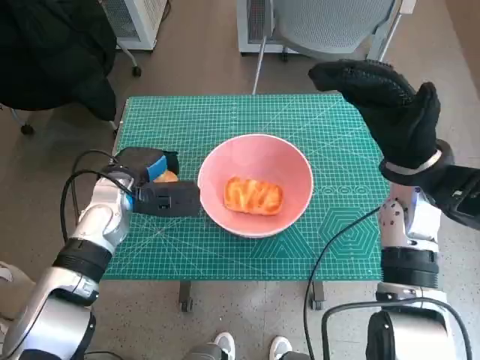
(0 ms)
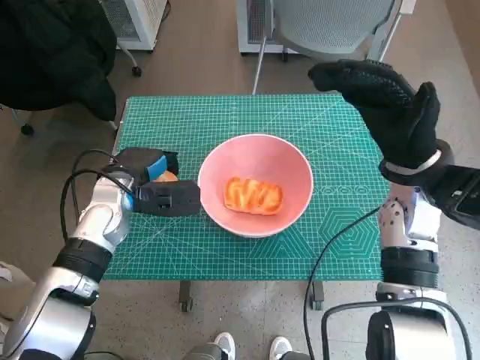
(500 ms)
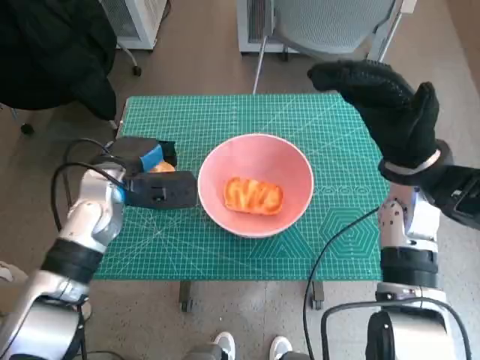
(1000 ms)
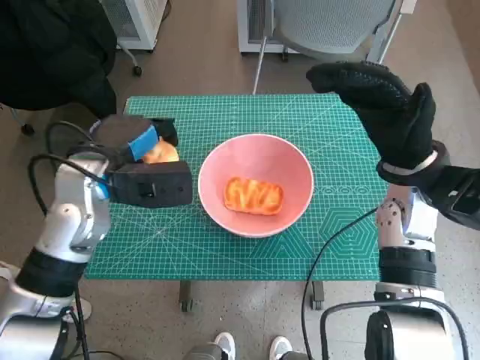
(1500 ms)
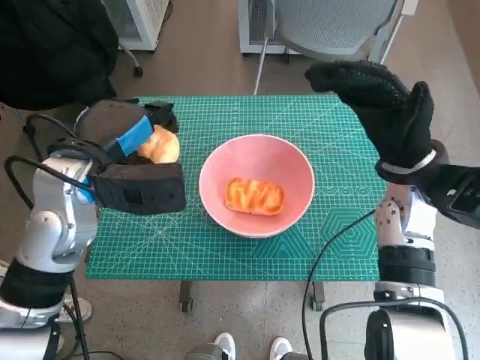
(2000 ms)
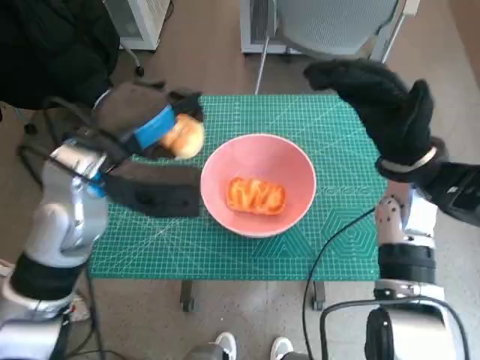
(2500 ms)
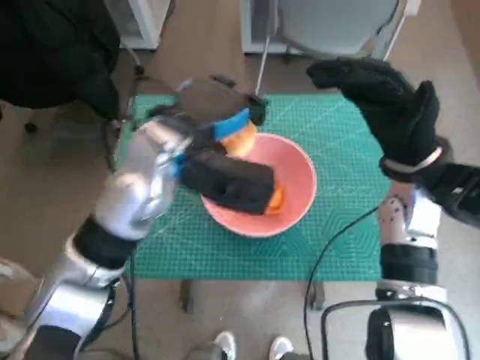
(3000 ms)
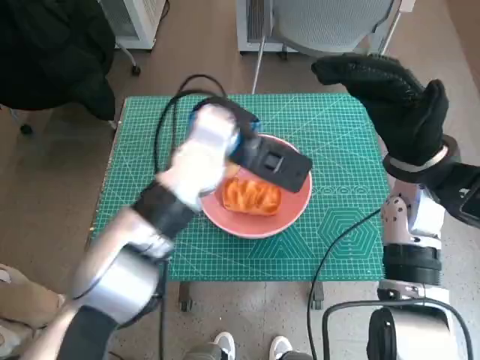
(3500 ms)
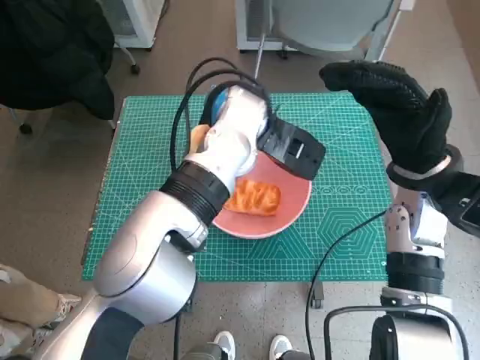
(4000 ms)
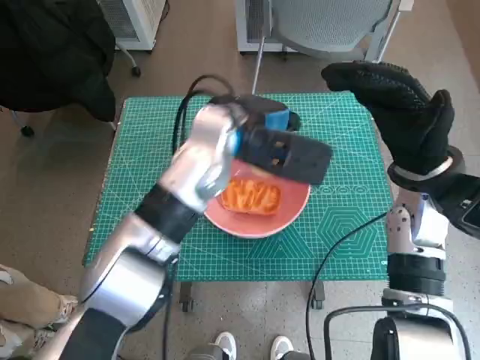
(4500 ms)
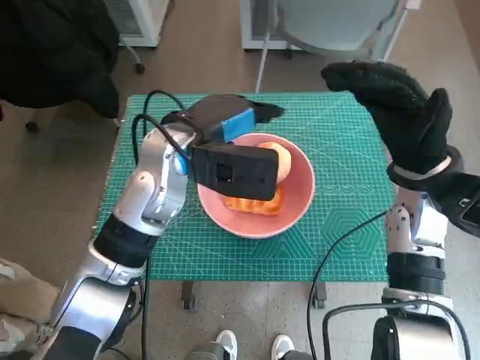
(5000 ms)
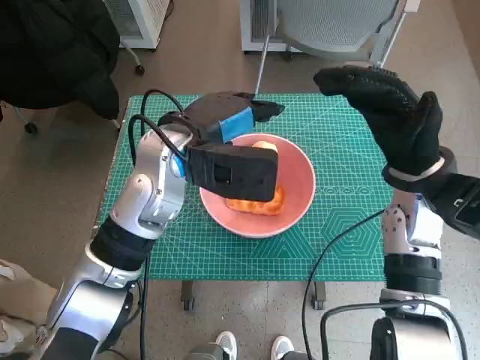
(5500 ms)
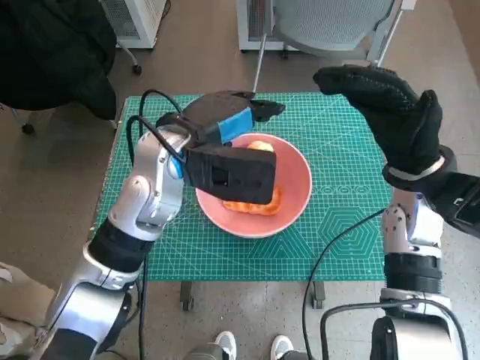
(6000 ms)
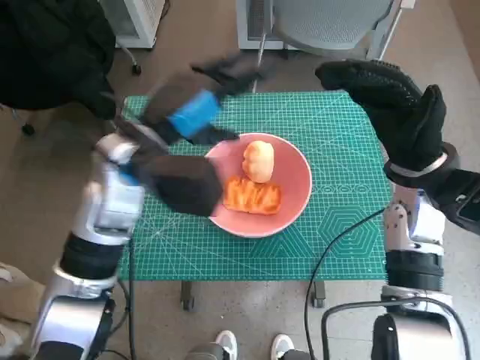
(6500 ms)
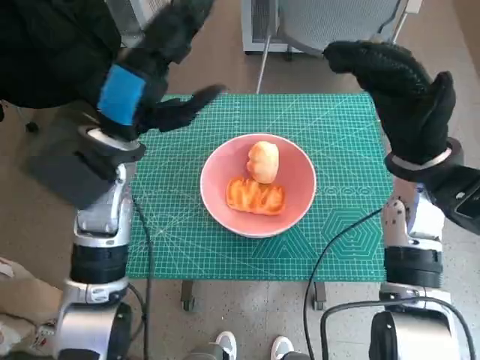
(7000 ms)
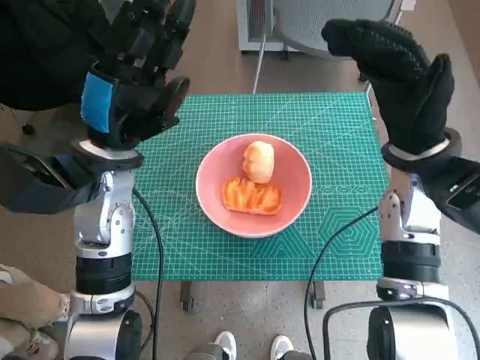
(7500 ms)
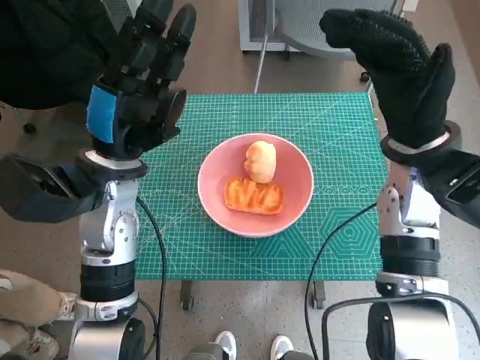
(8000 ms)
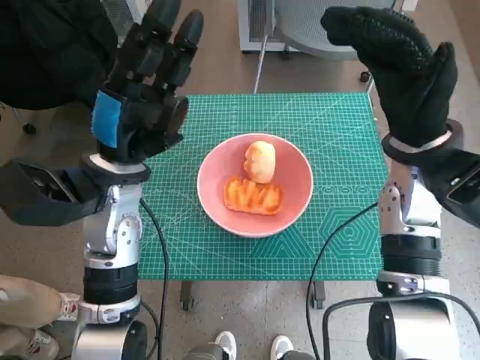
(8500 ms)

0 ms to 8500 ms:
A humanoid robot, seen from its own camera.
Step, 500 ms to 4500 ms: Place the round bread in pink bowl with left hand.
0 ms to 2000 ms: The left hand is displaced upward by approximately 10 cm.
2000 ms to 4000 ms: The left hand travels to the right and forward by roughly 20 cm.
4000 ms to 6500 ms: The left hand goes roughly 15 cm to the left and backward.

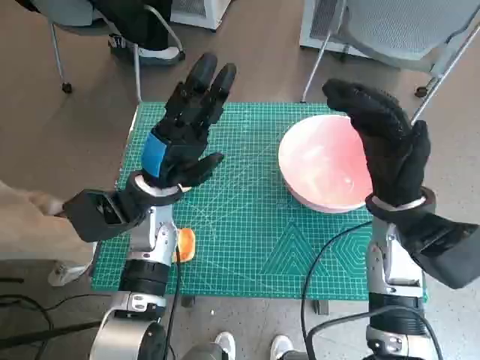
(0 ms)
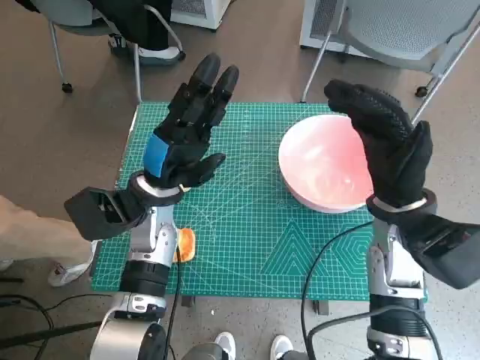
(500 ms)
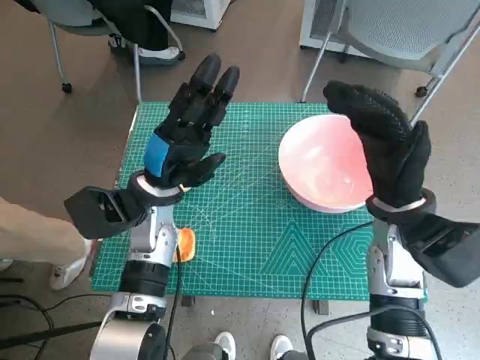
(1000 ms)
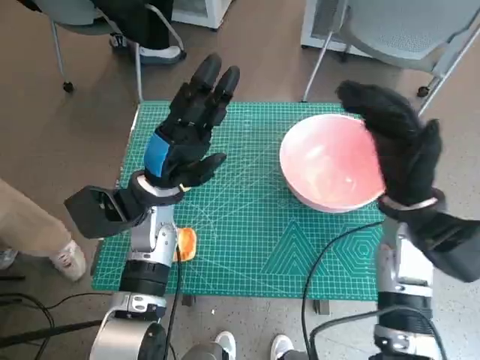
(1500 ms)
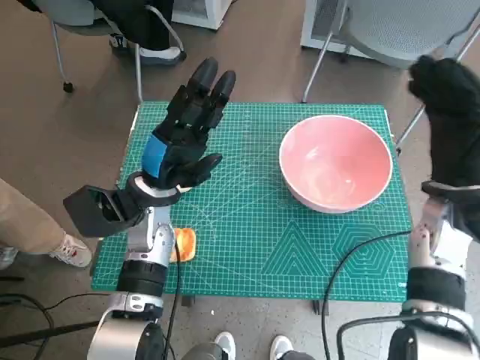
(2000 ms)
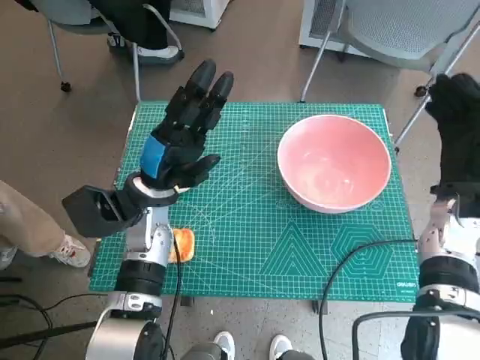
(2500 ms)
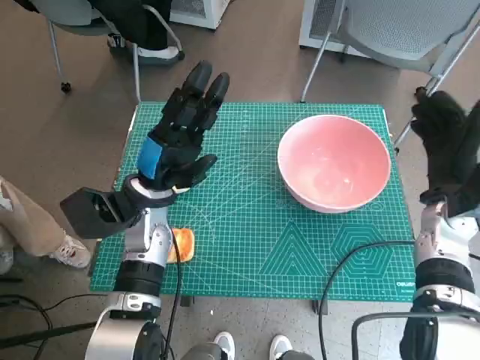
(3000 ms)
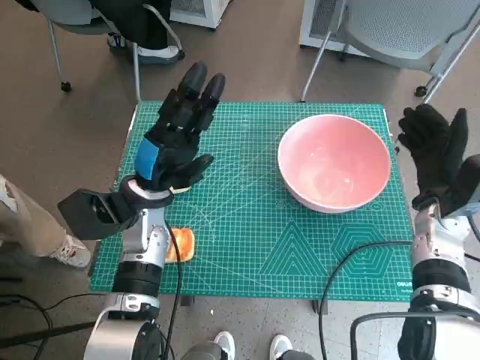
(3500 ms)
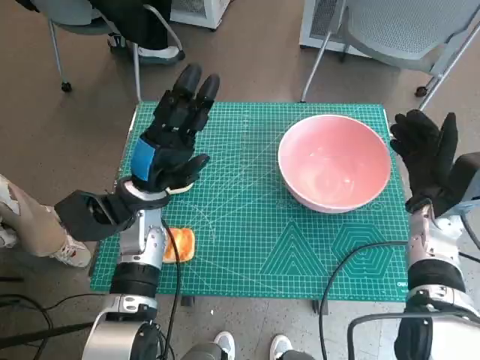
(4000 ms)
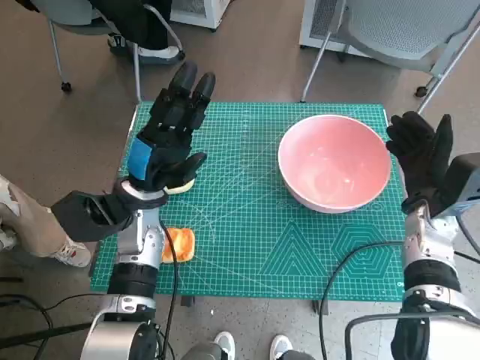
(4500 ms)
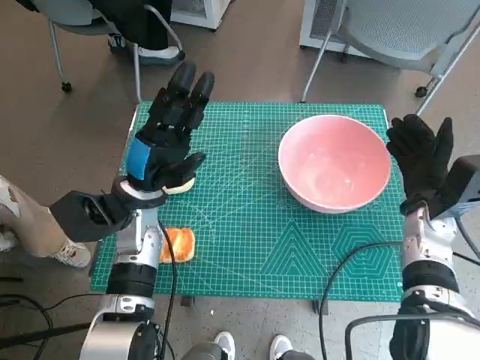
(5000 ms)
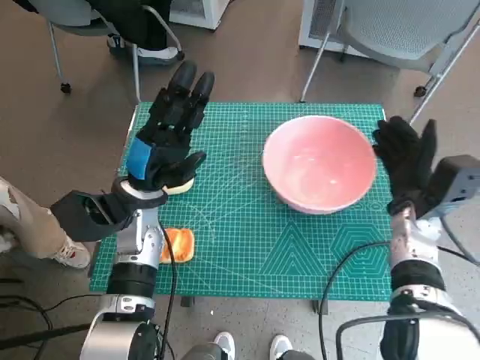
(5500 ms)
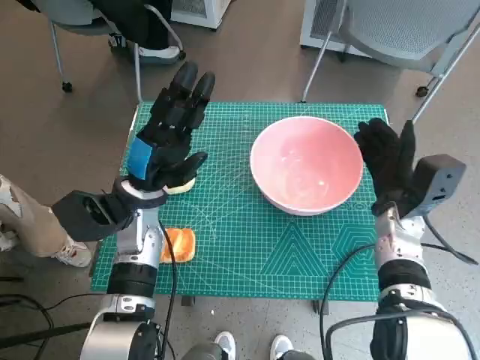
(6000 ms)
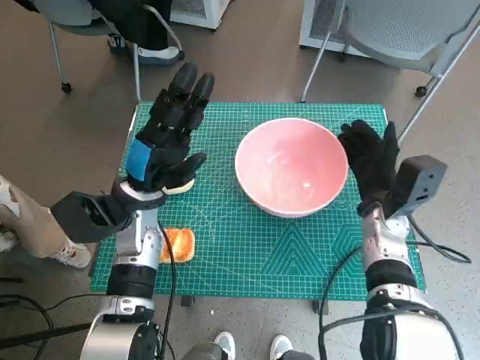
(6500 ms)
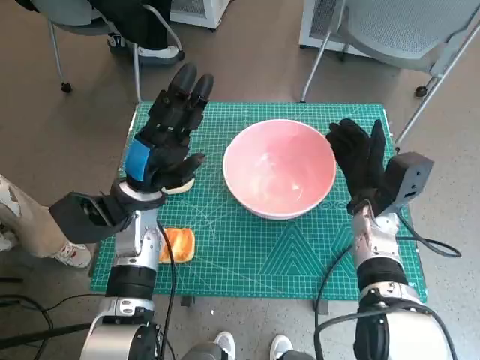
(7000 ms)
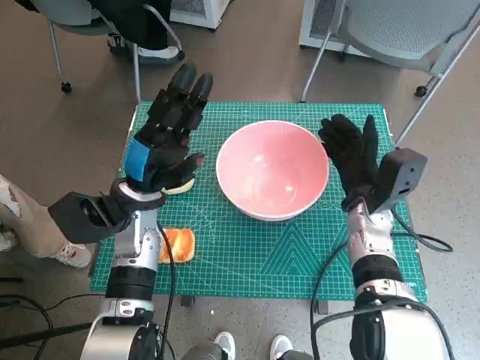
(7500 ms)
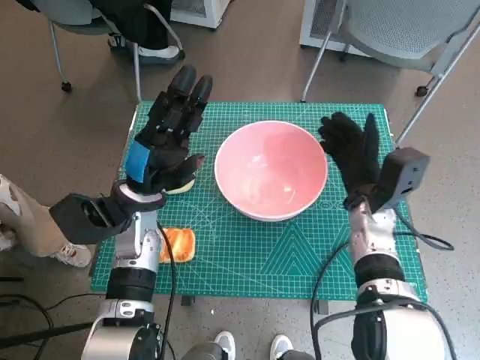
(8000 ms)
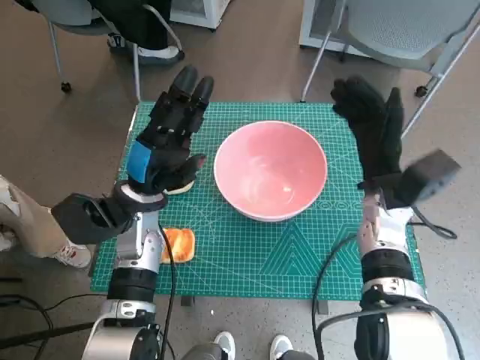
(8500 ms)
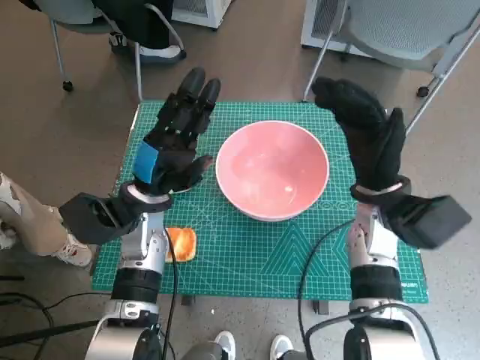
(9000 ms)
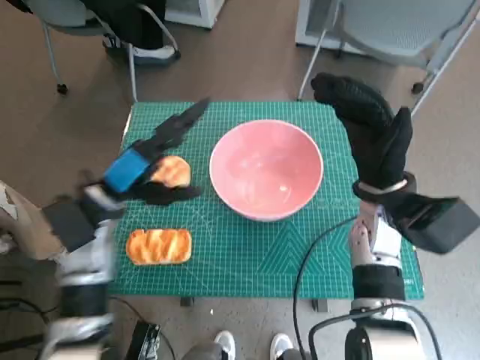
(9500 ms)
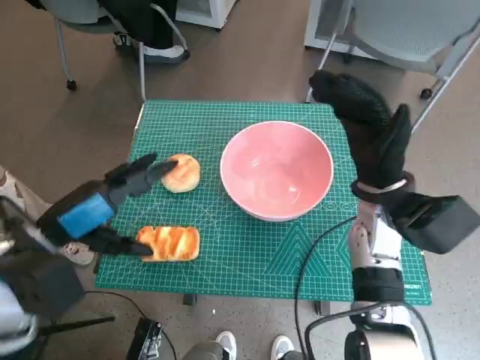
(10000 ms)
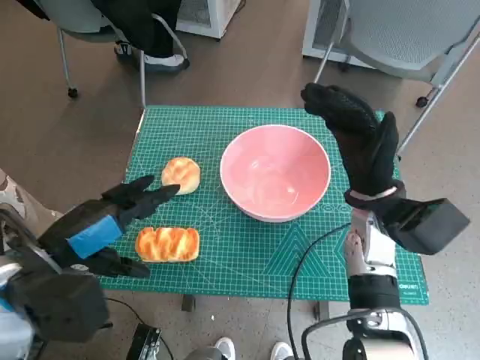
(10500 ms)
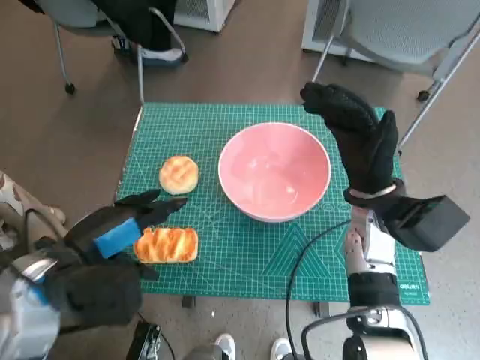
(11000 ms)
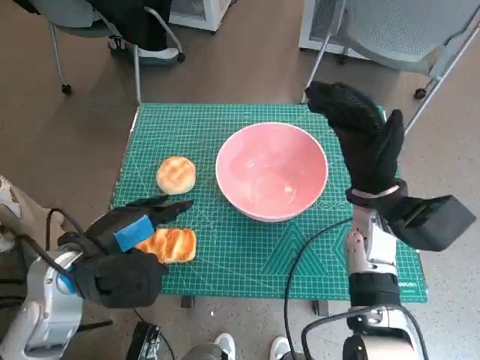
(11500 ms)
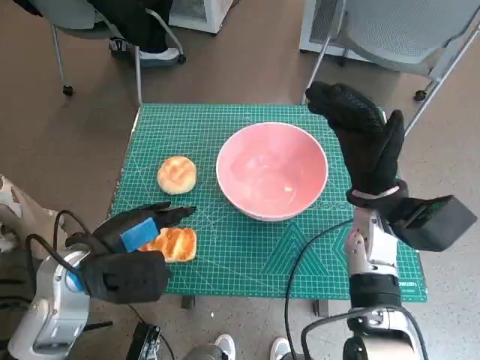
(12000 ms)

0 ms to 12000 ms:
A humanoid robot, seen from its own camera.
Step, 0 ms to 8000 ms: Move the pink bowl to the center of table with right hand.
2000 ms to 4000 ms: The right hand shifts approximately 5 cm downward.
8000 ms to 10000 ms: The right hand heads upward, covering some 5 cm. Meanwhile the left hand shifts roughly 15 cm backward, to the left and upward.
10000 ms to 12000 ms: The left hand changes place by about 5 cm.

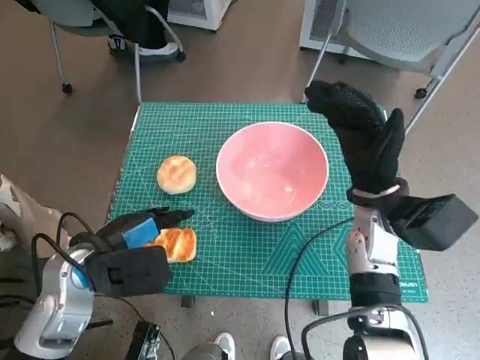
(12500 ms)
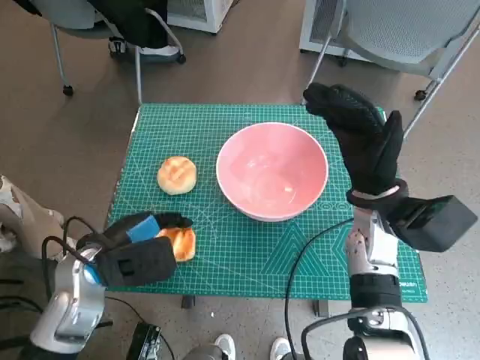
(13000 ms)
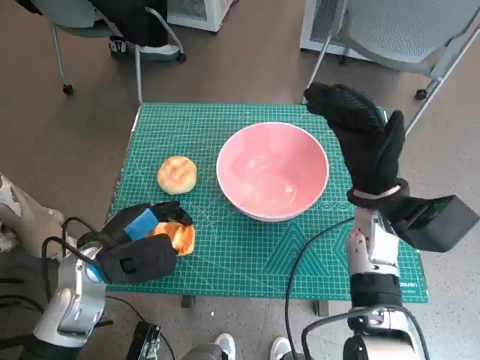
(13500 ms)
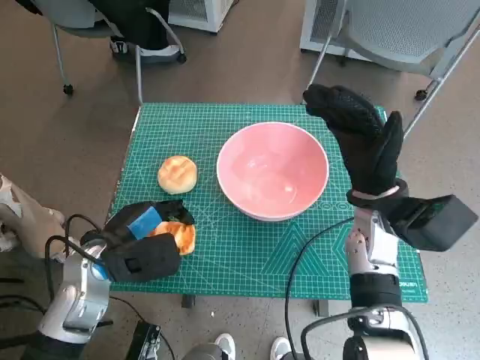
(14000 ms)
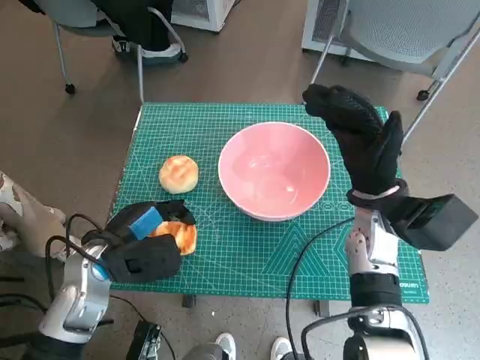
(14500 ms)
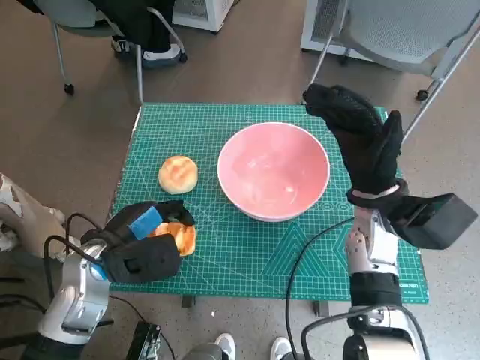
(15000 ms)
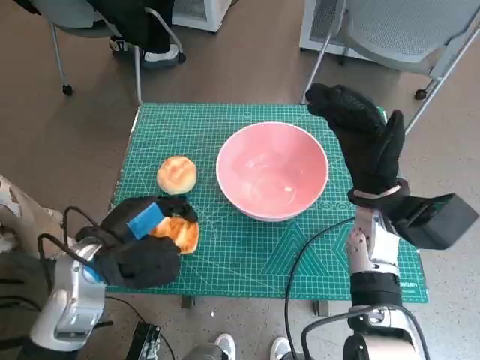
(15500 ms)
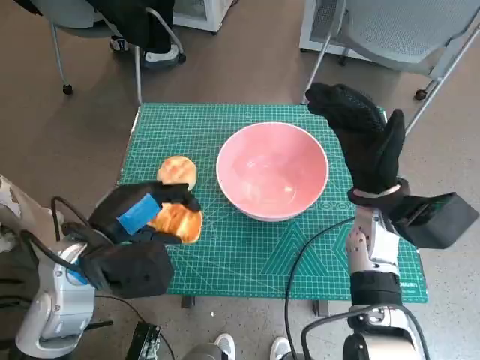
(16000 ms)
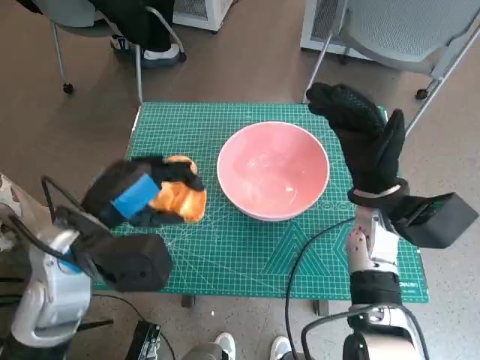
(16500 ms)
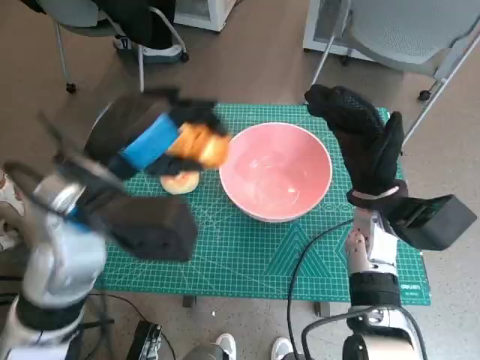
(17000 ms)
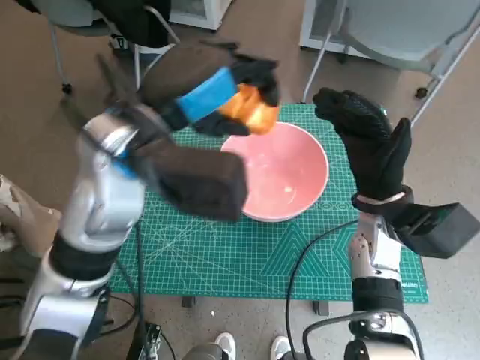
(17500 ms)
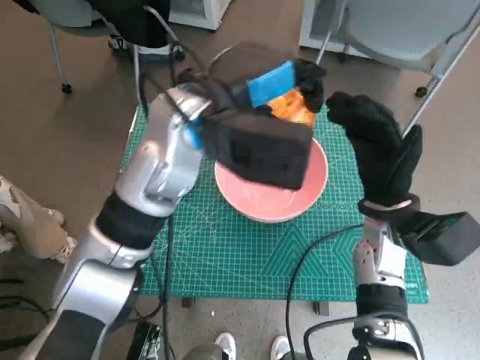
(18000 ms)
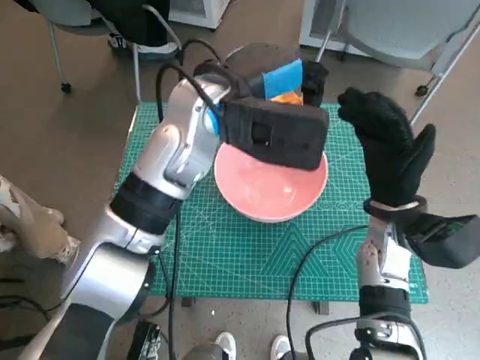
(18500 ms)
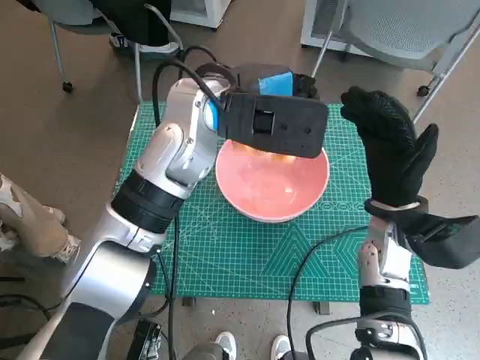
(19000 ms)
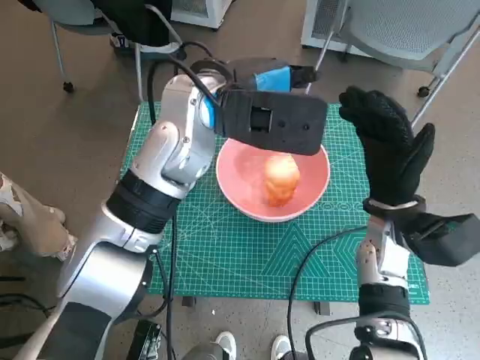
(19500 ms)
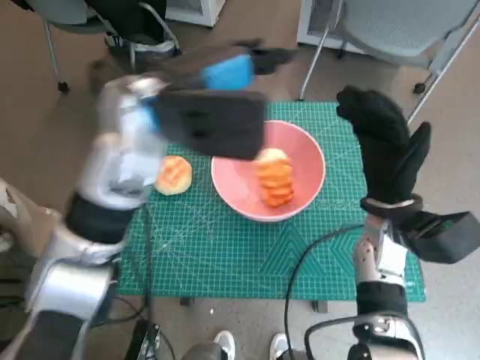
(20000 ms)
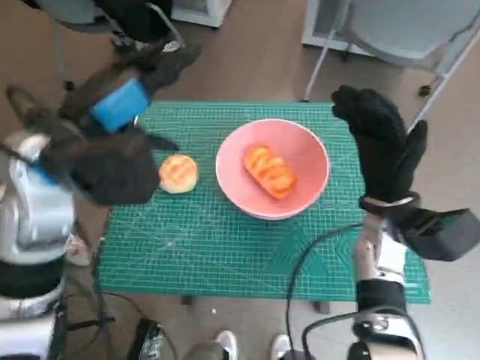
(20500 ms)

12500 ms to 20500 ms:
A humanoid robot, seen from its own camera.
Step, 13500 ms to 19000 ms: Place the long bread in pink bowl with left hand.
12500 ms to 14500 ms: The hands make only small movements.
14500 ms to 16500 ms: The left hand travels upward by some 10 cm.
16500 ms to 18500 ms: The left hand is displaced to the right, forward and upward by approximately 20 cm.
18500 ms to 20500 ms: The left hand is displaced to the left and backward by approximately 15 cm.
